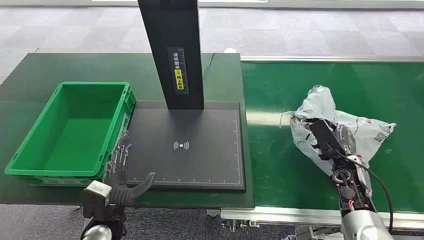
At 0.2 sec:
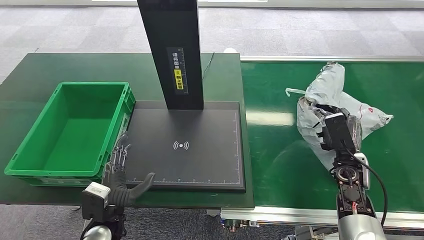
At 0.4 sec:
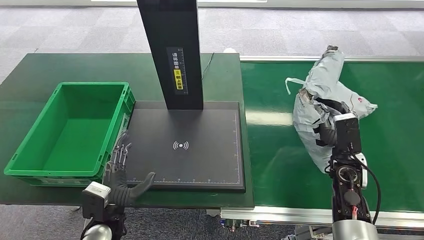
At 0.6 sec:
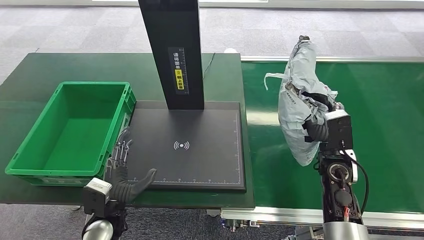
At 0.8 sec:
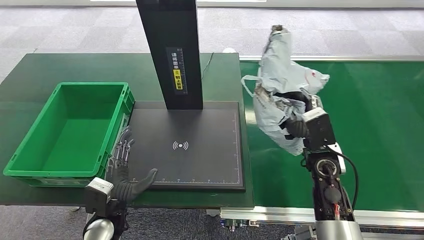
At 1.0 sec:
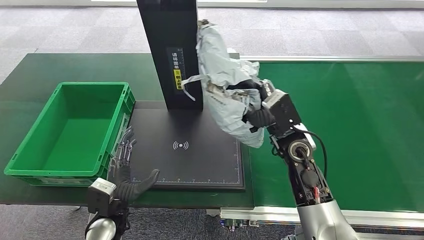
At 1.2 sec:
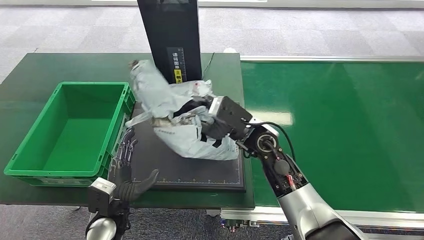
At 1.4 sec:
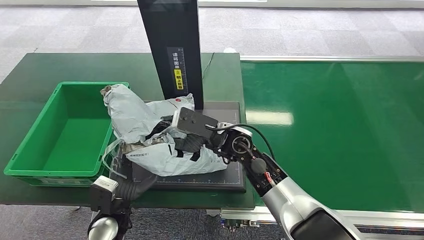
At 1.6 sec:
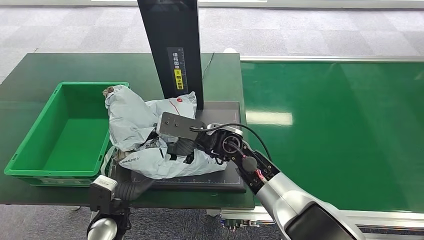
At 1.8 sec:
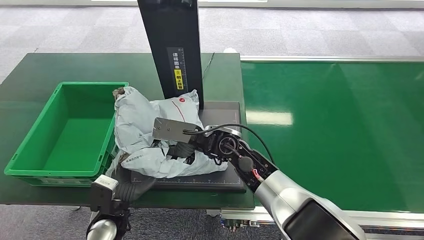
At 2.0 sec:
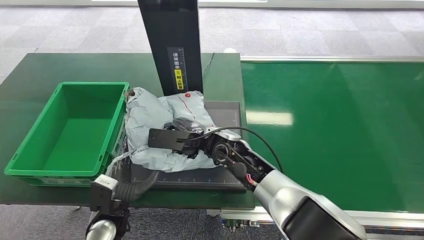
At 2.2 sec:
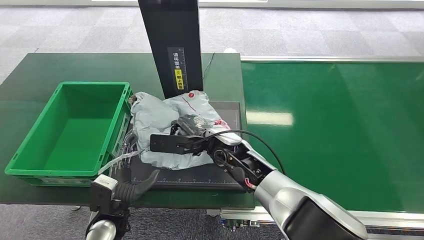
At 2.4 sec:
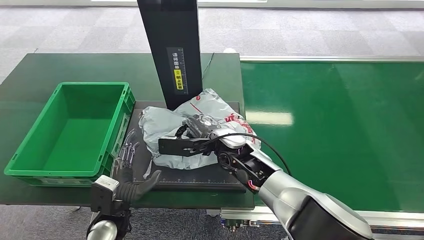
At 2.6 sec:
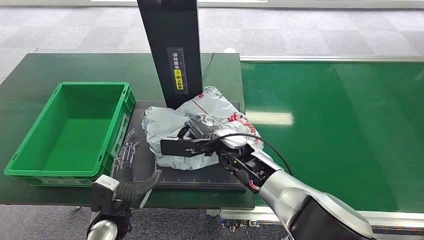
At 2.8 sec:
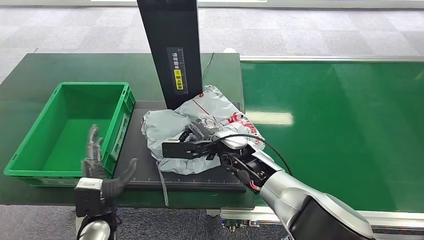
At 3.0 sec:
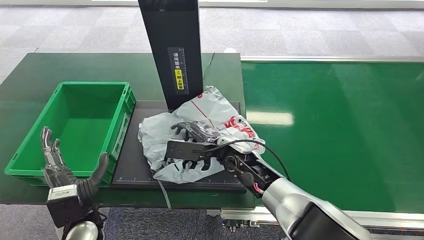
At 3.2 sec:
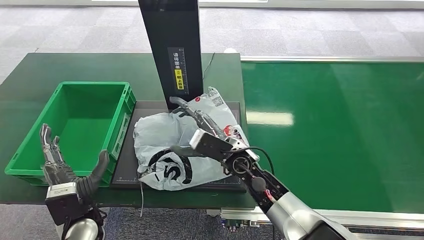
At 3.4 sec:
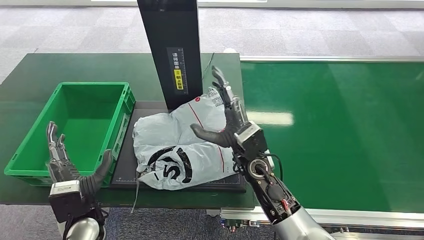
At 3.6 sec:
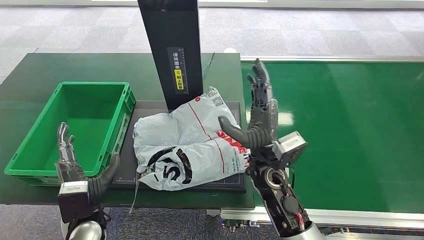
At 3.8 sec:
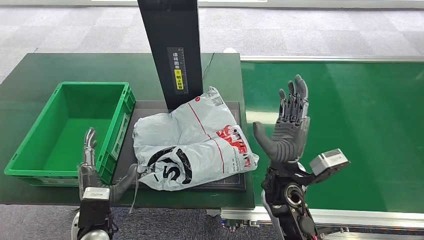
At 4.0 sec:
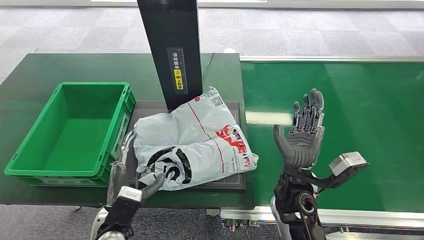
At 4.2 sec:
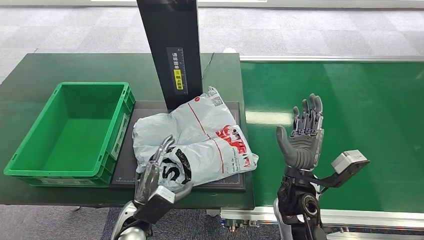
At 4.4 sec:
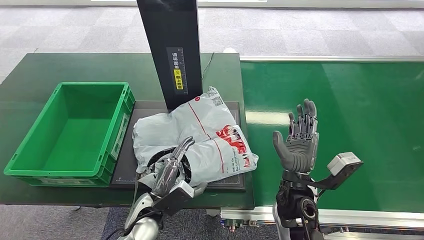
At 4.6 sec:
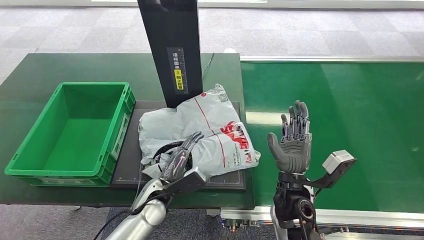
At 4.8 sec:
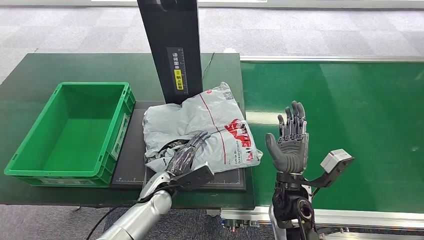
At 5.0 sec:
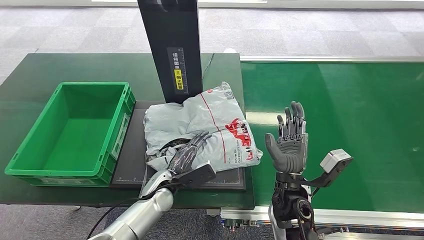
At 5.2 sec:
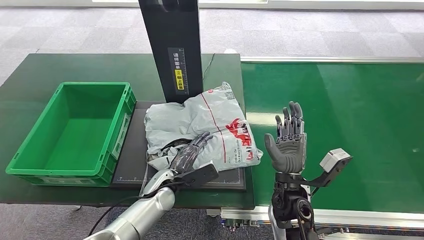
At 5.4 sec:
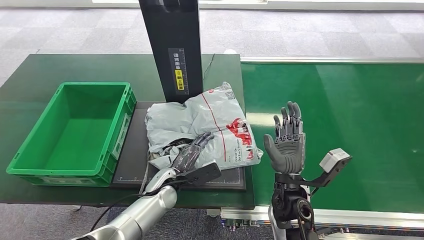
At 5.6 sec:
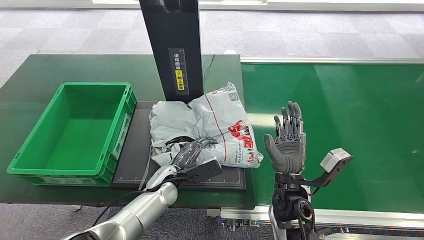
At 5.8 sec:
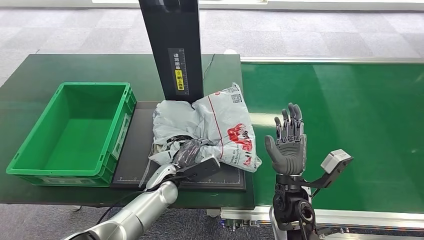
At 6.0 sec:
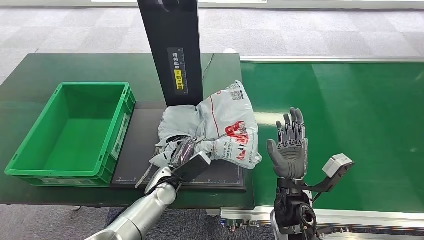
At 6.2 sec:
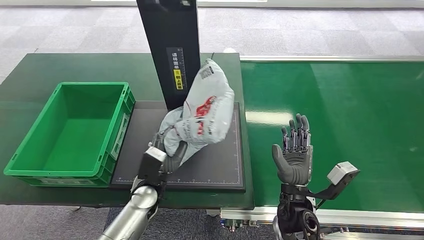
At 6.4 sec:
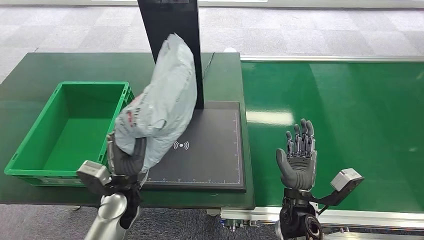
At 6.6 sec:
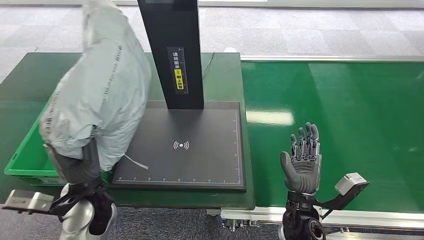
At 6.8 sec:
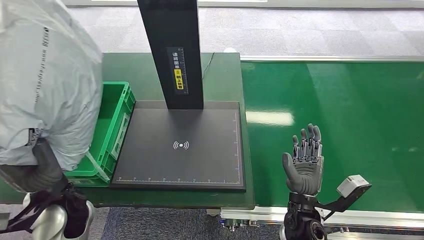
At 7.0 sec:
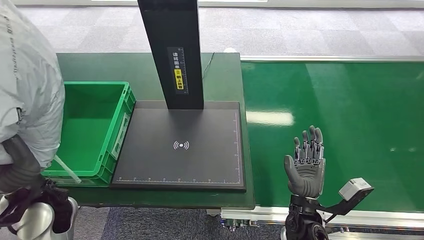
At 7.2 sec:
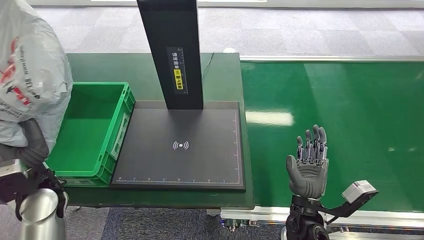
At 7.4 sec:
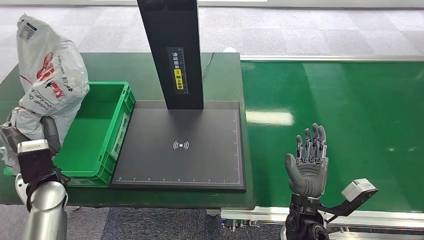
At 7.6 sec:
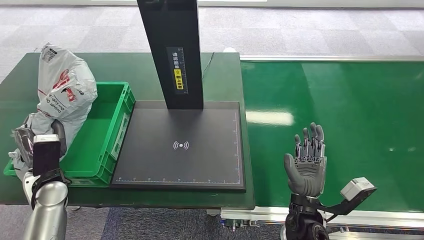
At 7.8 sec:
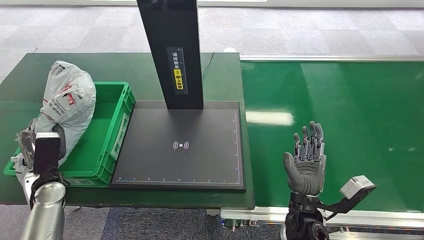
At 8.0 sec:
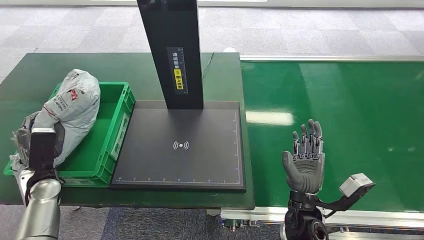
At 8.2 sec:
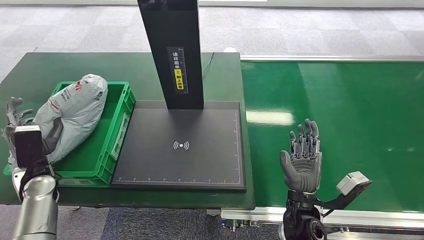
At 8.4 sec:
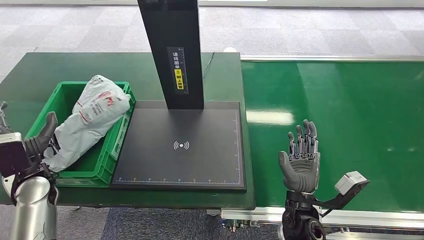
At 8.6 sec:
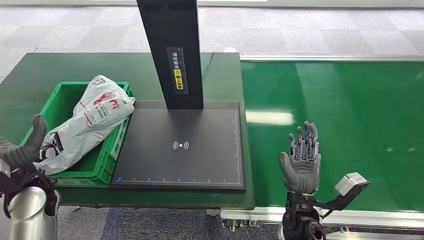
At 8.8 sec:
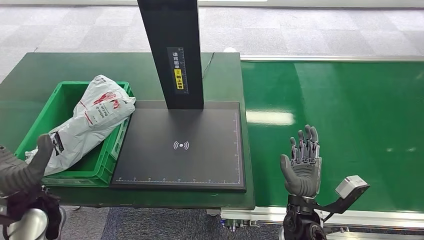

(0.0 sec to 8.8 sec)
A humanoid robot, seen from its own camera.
Step, 0.0 sec - 0.2 sec: Pick up the package from the conveyor belt.
1.4 sec - 3.0 sec: The right hand shifts some 5 cm downward, while the left hand changes place by about 5 cm.
3.0 sec - 4.4 sec: The right hand heads backward and to the right, covering some 15 cm; the left hand moves to the right, roughly 10 cm.
7.4 sec - 8.8 sec: The left hand heads backward, covering some 5 cm, and moves roughly 5 cm to the left and comes back.
